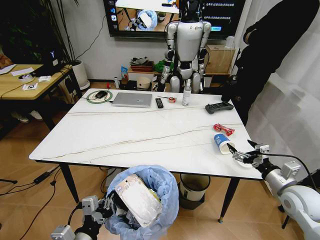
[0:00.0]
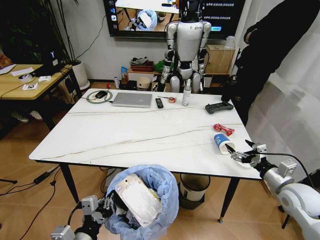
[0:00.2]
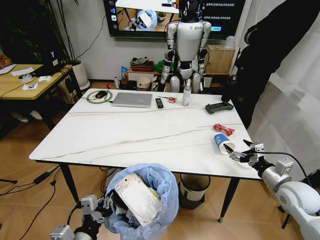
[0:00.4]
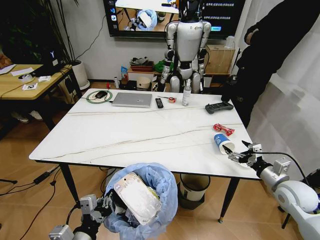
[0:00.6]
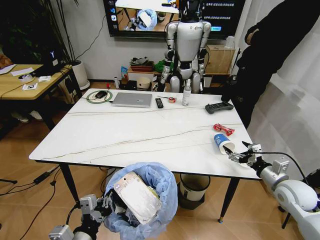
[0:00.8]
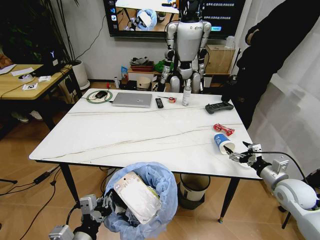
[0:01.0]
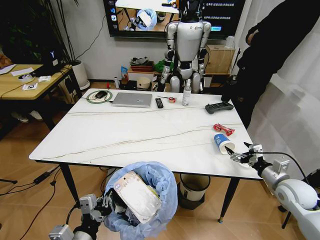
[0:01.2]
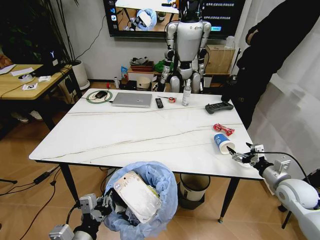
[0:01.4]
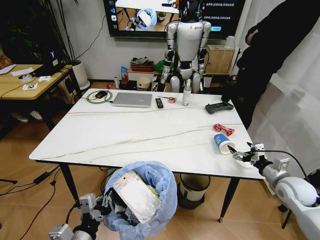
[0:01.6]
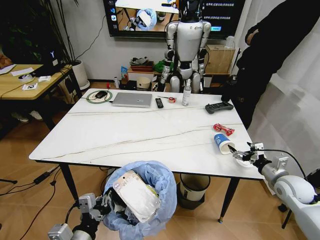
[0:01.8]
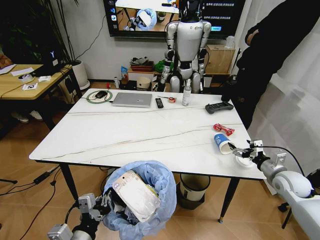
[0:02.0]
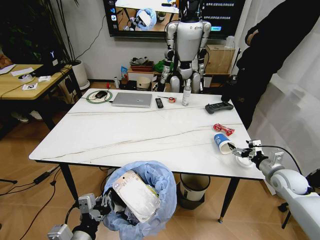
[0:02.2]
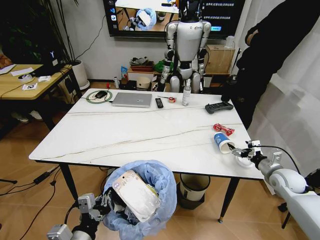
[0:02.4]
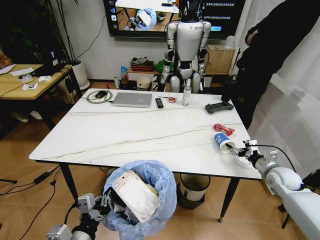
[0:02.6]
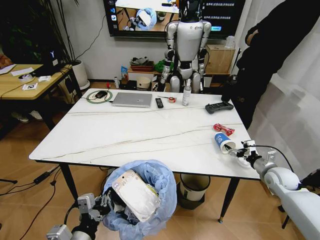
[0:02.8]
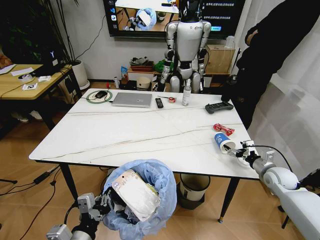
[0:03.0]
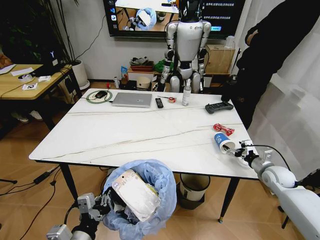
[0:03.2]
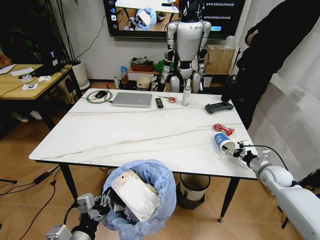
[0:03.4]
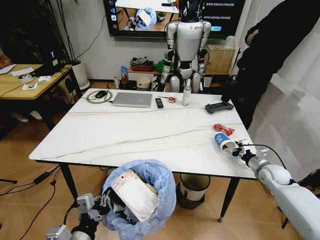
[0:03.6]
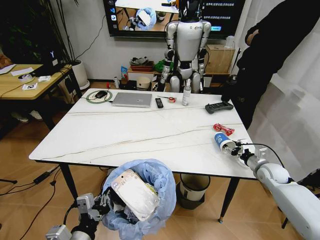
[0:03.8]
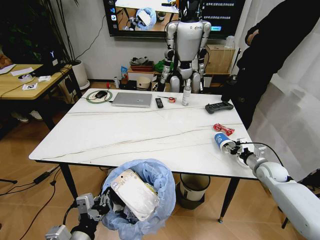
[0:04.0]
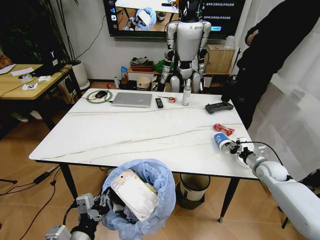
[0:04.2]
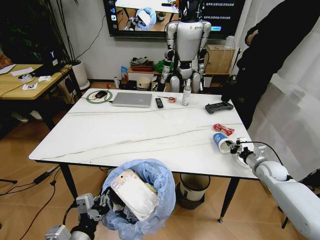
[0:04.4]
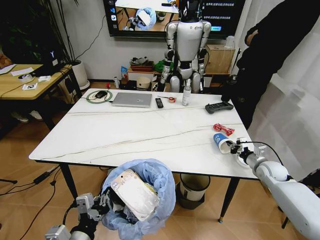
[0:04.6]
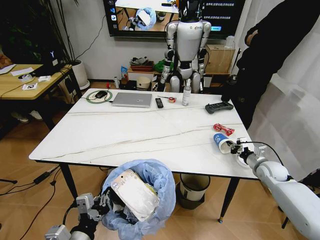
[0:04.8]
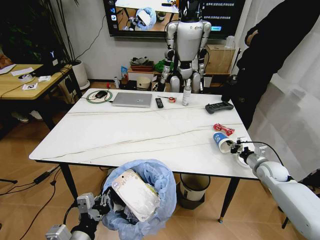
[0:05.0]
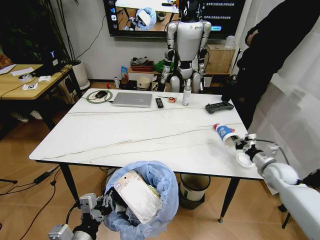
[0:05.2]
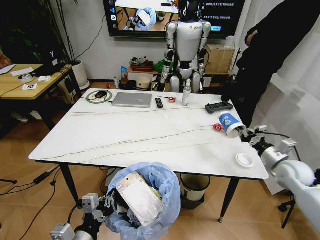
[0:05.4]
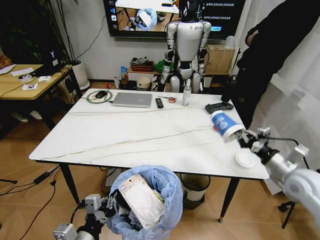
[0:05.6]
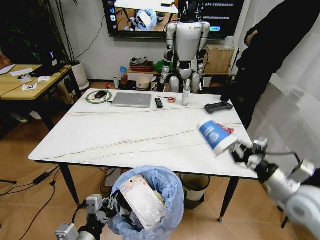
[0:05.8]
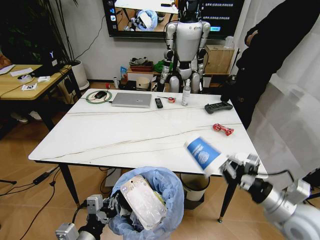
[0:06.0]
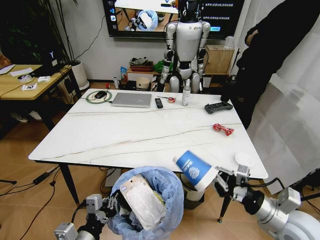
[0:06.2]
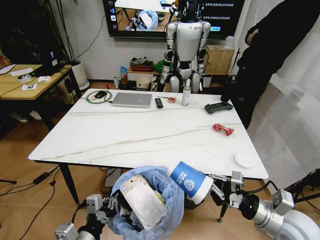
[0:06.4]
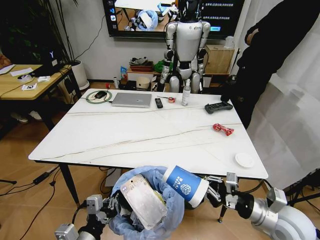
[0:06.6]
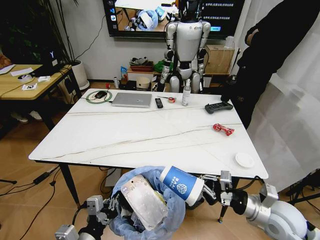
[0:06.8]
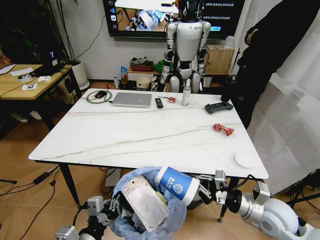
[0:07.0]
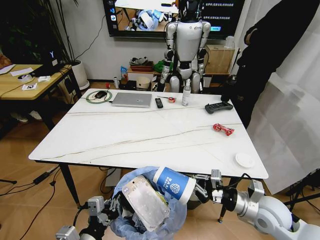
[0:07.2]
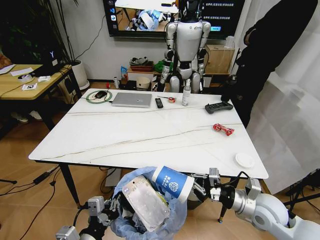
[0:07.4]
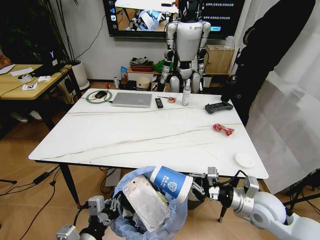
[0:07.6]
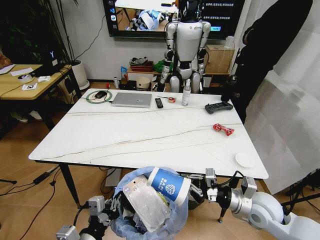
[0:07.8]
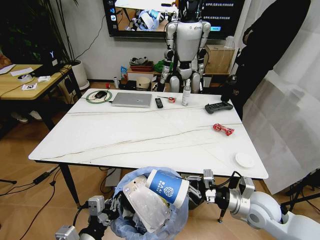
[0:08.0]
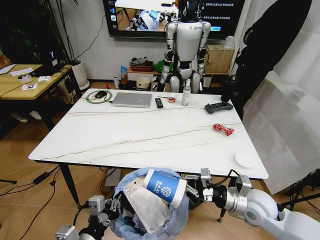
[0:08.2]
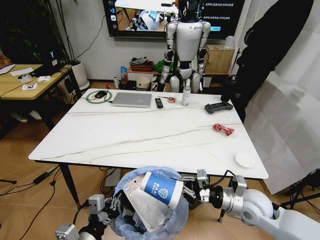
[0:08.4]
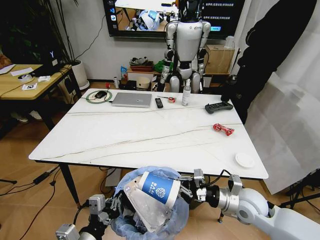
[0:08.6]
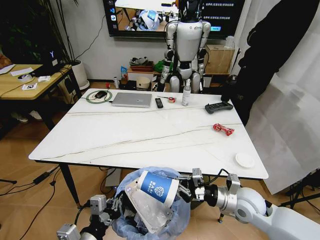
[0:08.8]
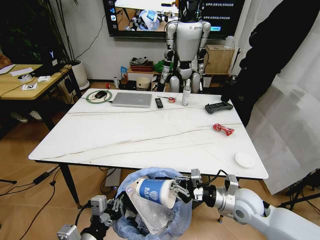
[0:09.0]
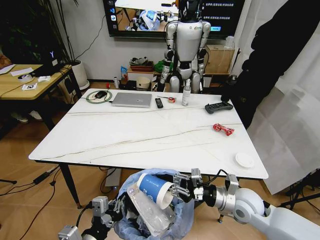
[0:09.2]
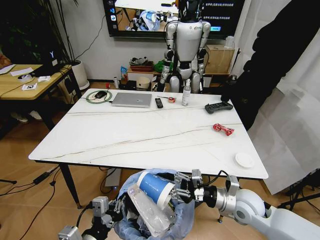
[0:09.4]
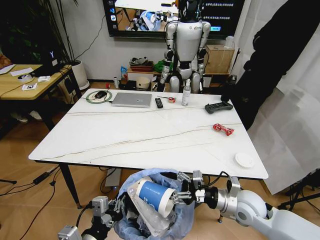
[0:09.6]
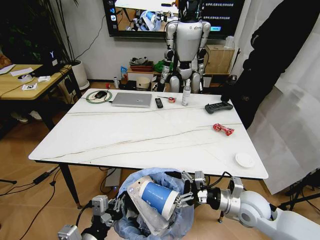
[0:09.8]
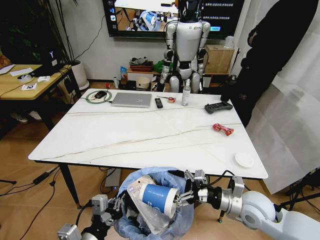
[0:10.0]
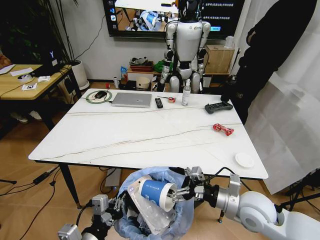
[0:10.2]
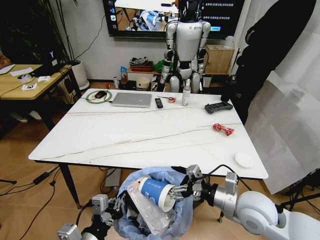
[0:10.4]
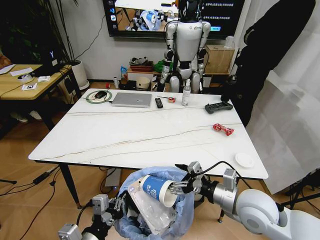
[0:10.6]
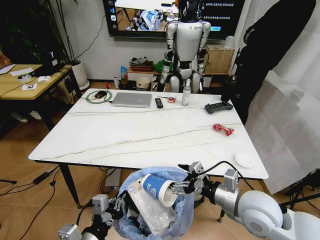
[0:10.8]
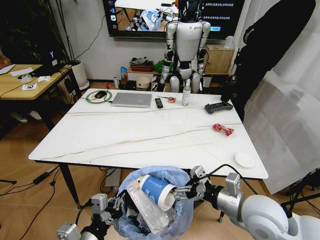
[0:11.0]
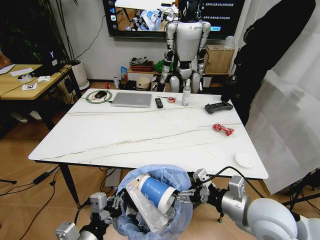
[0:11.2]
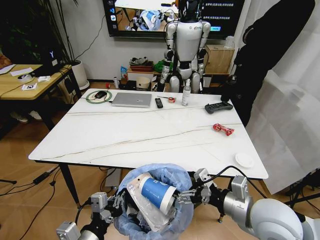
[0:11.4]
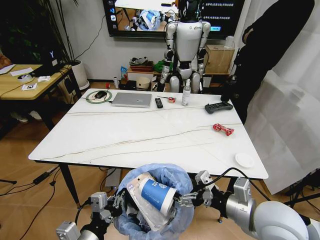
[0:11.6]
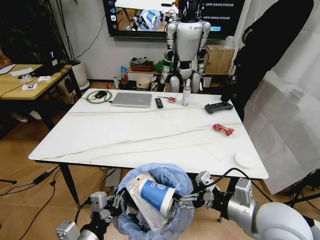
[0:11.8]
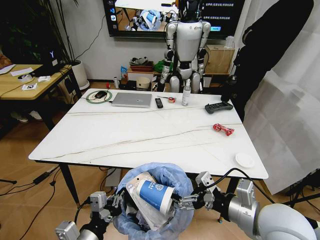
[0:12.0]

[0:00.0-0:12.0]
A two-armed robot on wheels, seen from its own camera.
Task of the whole recording: Pick up the trash bin and place the trash from the table into it.
0:00.0 to 0:01.6: The right gripper ends up approximately 5 cm from where it was.
0:01.6 to 0:03.0: The right gripper shifts approximately 5 cm forward.
0:03.0 to 0:04.4: The right gripper closes its fingers.
0:04.4 to 0:06.0: The right gripper moves backward, upward and to the left, roughly 25 cm.
0:06.0 to 0:07.6: The right gripper travels downward and forward by approximately 10 cm.
0:07.6 to 0:09.0: There are only small adjustments of the grippers.
0:09.0 to 0:10.4: The right gripper heads upward, covering roughly 5 cm, and opens.
0:10.4 to 0:12.0: The right gripper shifts approximately 10 cm upward and backward.

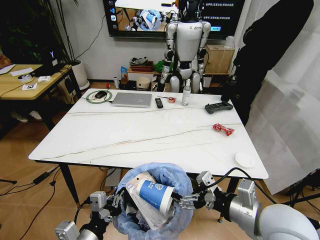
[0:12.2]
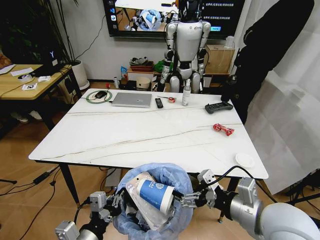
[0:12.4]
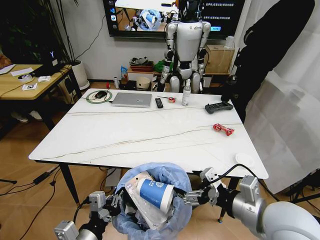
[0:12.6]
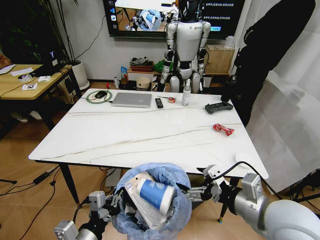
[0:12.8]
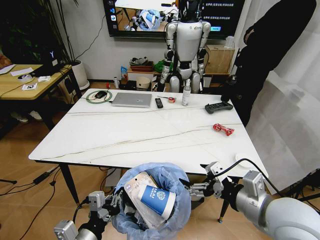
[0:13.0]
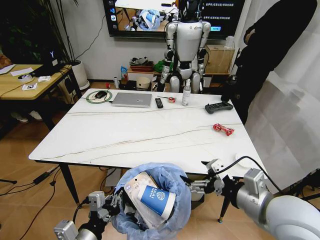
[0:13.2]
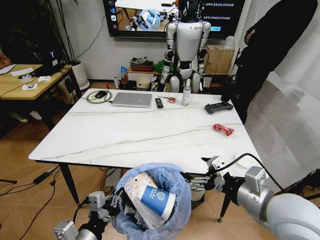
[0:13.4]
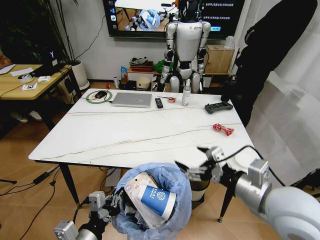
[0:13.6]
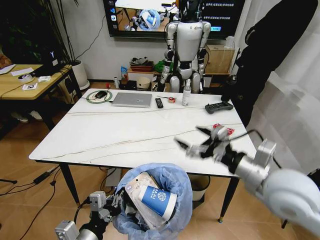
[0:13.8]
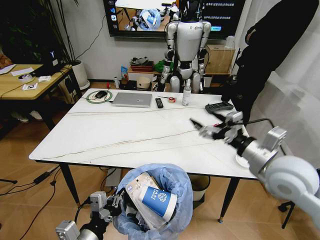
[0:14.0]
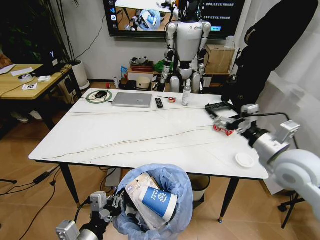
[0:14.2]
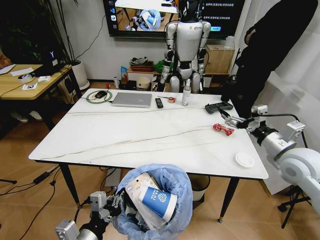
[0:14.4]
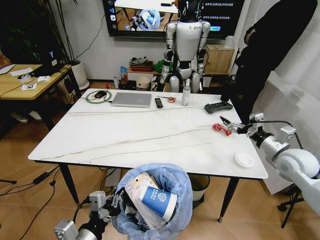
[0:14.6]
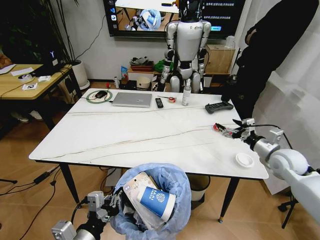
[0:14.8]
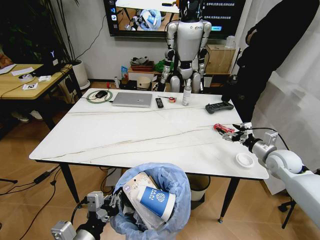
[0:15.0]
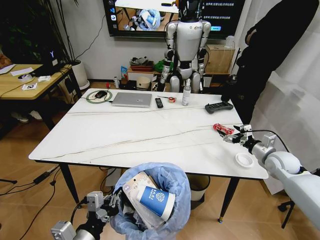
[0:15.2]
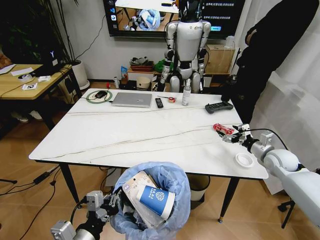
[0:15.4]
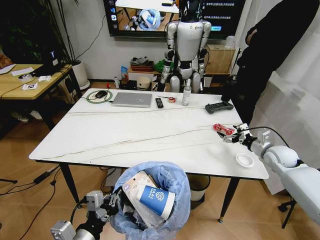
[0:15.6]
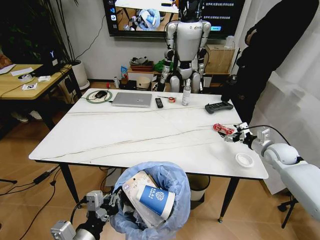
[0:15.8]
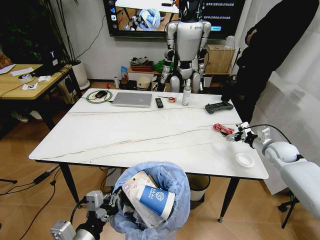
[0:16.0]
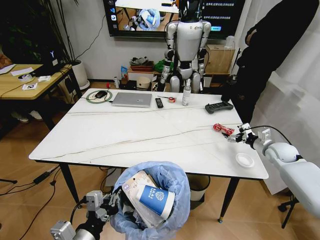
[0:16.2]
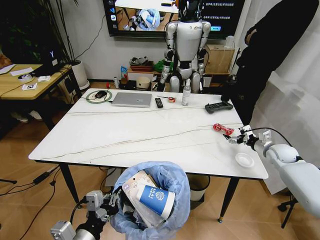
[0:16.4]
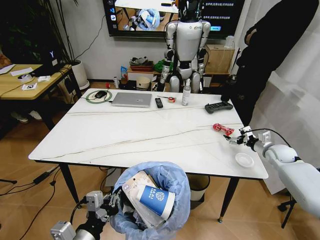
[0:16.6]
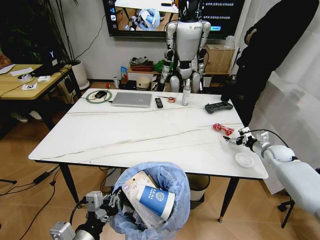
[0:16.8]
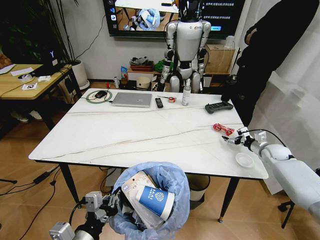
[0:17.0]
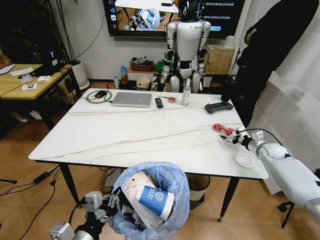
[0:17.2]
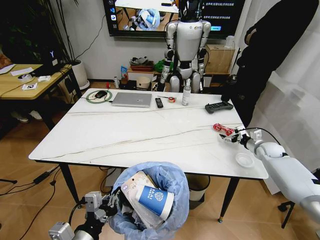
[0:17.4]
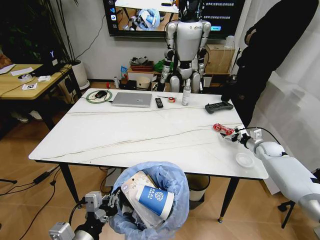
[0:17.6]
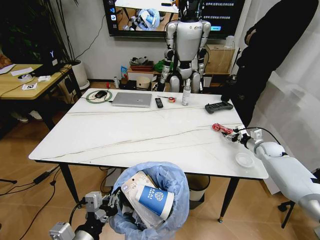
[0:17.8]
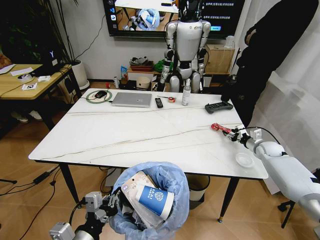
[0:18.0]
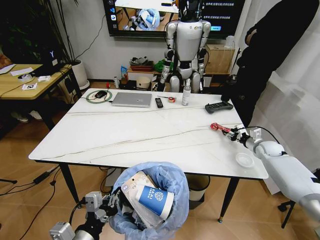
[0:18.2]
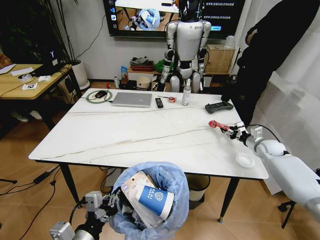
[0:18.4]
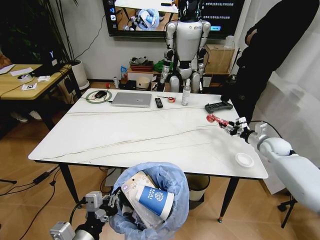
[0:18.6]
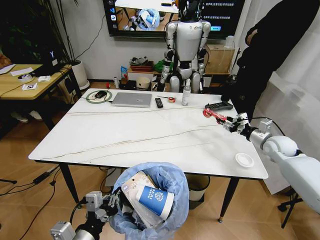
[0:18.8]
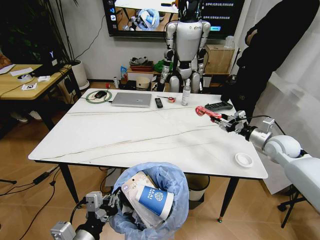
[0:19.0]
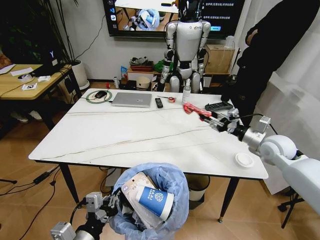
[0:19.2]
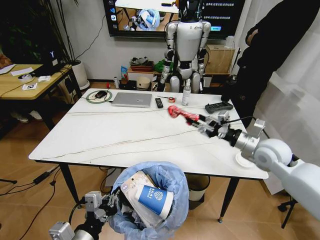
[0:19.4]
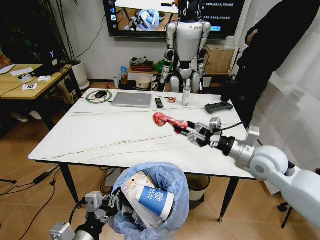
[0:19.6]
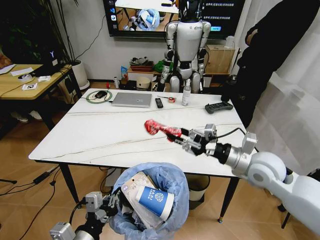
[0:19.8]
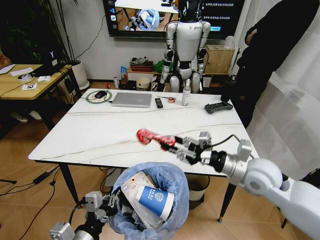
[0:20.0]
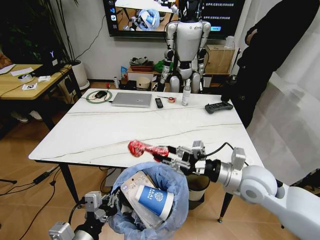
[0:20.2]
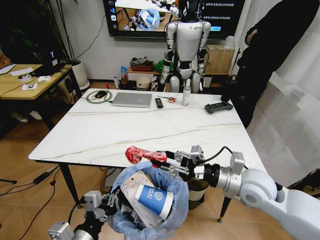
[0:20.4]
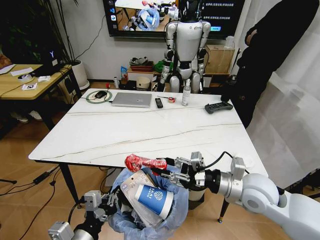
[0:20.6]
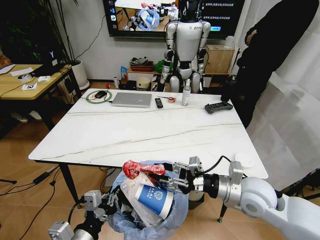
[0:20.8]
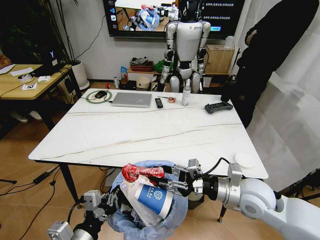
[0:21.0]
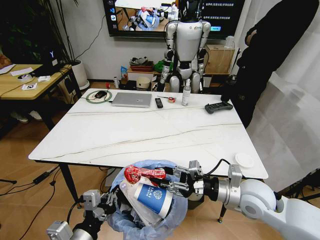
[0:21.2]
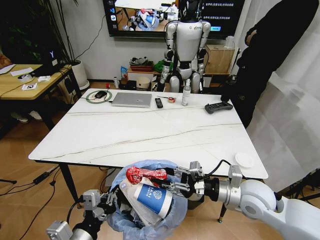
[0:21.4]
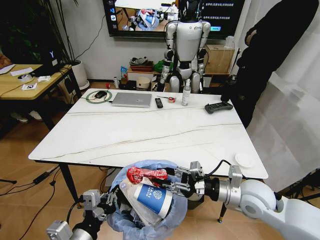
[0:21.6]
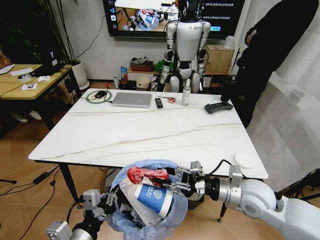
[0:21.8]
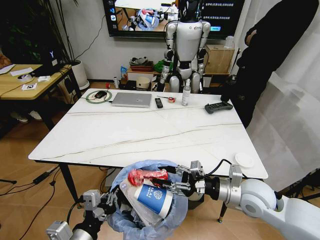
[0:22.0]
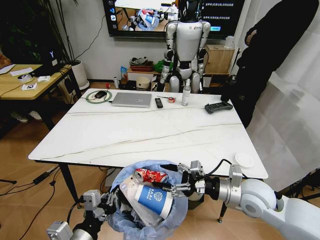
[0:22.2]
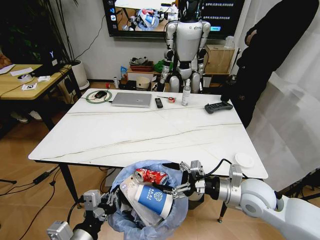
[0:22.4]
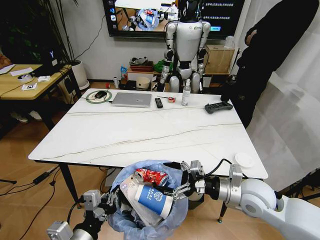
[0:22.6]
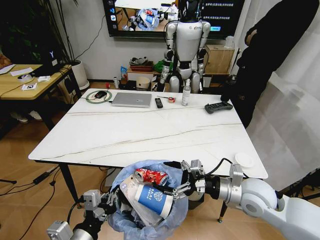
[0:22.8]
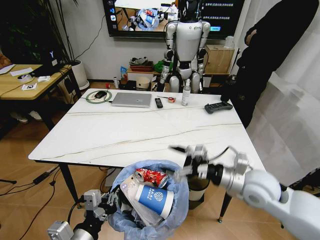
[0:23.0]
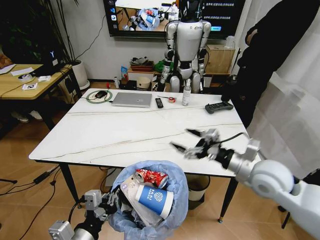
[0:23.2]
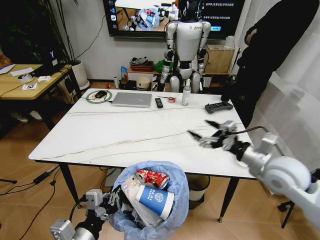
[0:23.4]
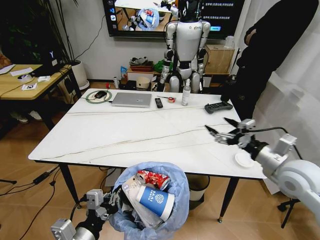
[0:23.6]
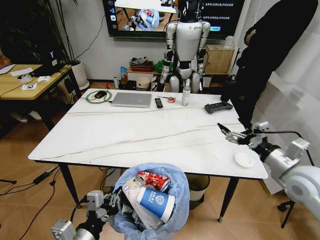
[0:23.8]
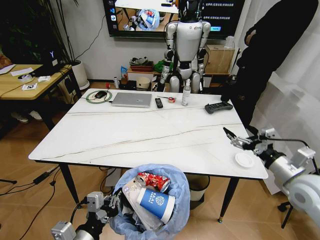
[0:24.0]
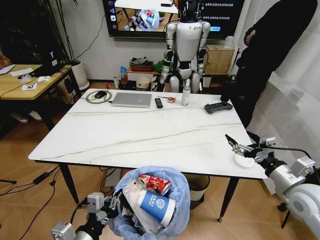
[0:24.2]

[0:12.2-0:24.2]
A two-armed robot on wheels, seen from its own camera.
Task of the whole recording: Pick up the trash bin and place the trash from the table into it.
0:12.2 to 0:13.8: The right gripper is displaced forward by some 5 cm.
0:13.8 to 0:15.2: The right gripper shifts about 30 cm to the right, downward and forward.
0:15.2 to 0:16.6: The right gripper travels forward and to the right by approximately 10 cm.
0:16.6 to 0:18.2: The right gripper closes up.
0:18.2 to 0:19.8: The right gripper moves to the left, backward and upward, roughly 30 cm.
0:19.8 to 0:21.2: The right gripper shifts approximately 10 cm backward and downward.
0:21.2 to 0:22.6: The right gripper opens.
0:22.6 to 0:24.2: The right gripper shifts roughly 15 cm to the right.
